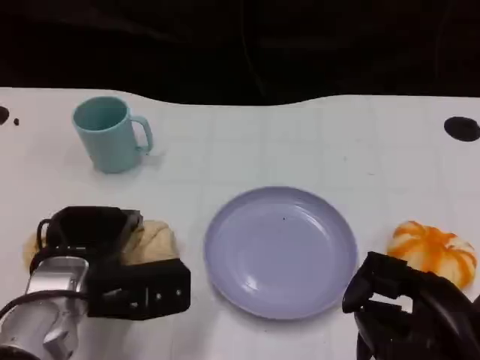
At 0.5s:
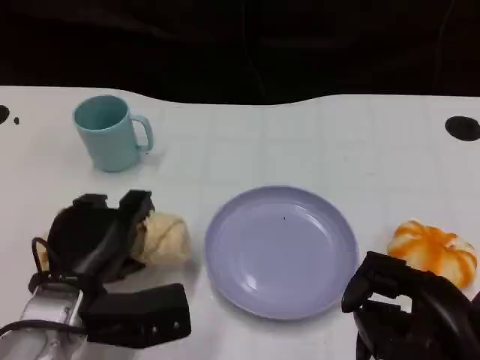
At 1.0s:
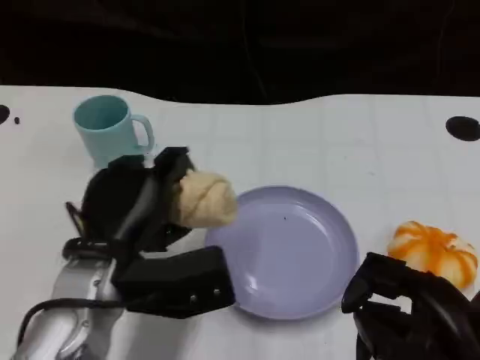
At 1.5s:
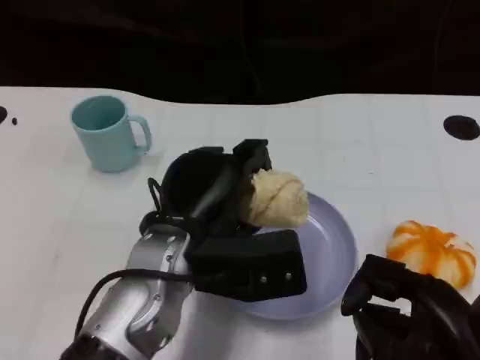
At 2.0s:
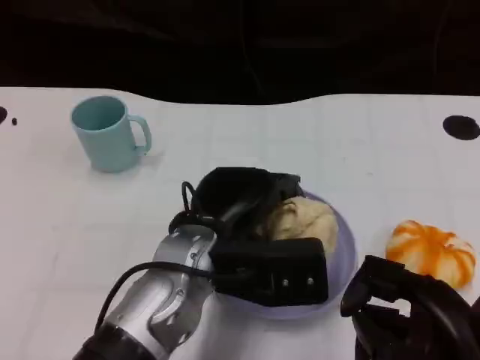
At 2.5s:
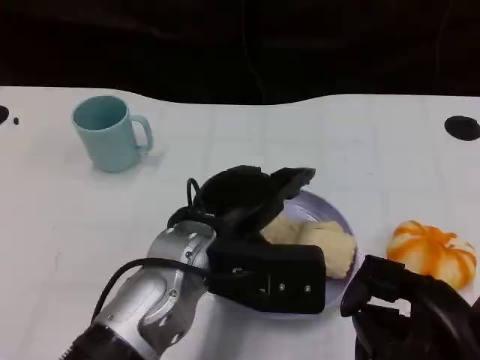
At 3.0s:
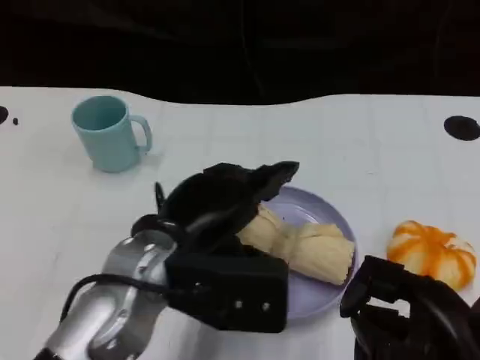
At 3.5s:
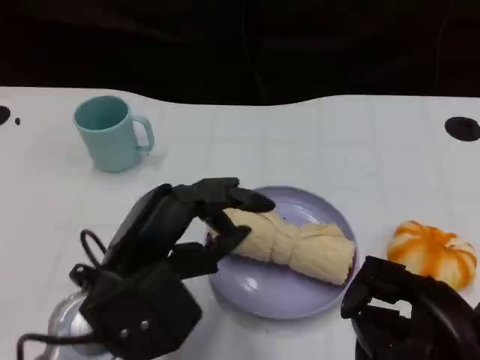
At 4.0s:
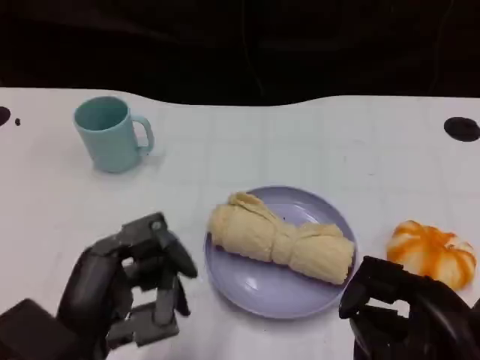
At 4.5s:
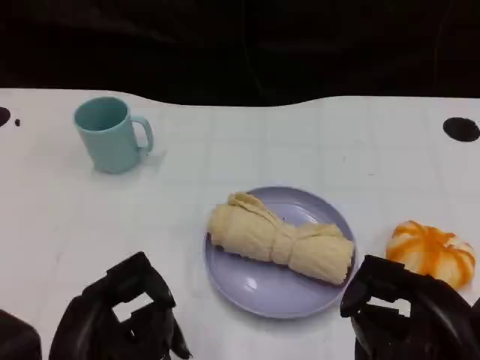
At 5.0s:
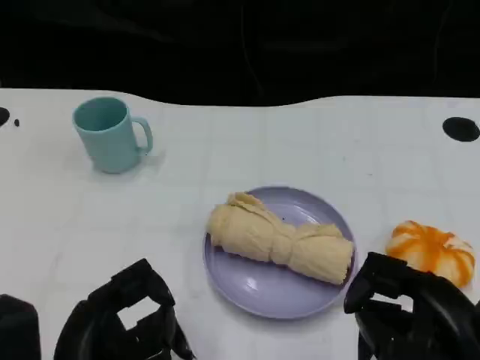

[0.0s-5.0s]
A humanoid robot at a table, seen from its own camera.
Task of the whole recording: Grasp the towel on the left side of the plate with the left hand and place it into the plate.
0.0s to 2.5s: The left hand travels to the right and upward by some 15 cm.
2.5s to 5.0s: The left hand goes roughly 15 cm backward and to the left.

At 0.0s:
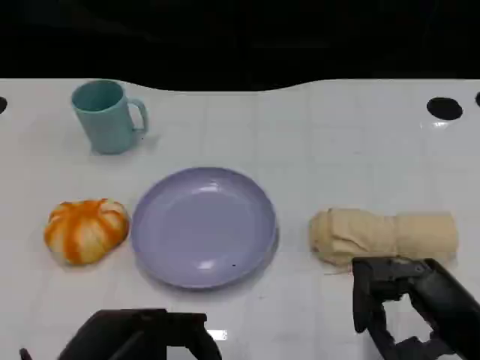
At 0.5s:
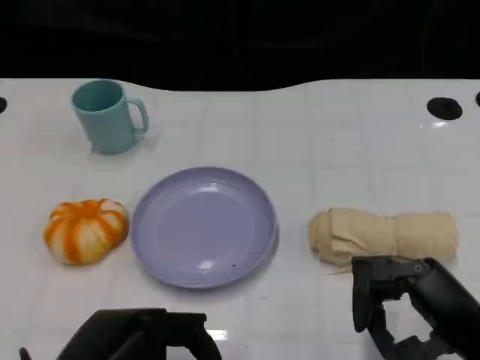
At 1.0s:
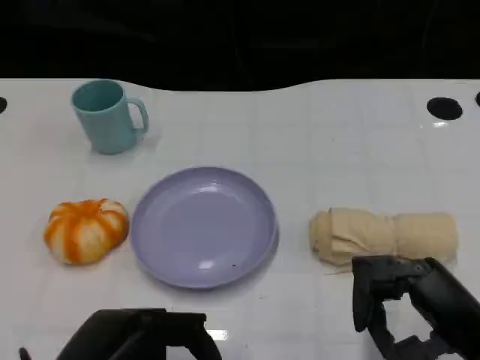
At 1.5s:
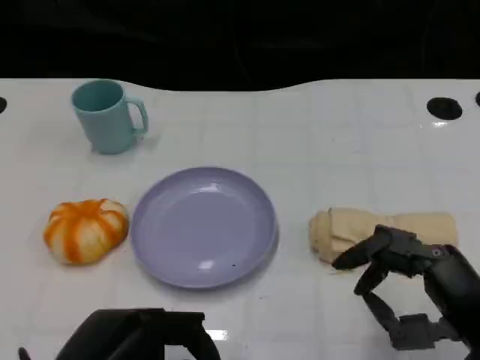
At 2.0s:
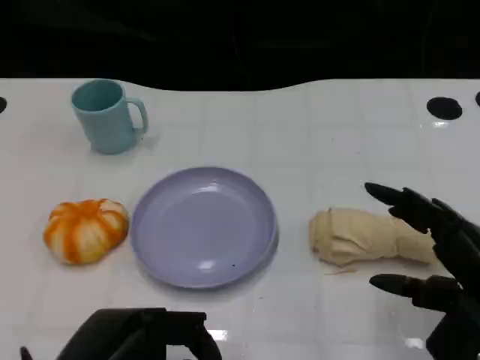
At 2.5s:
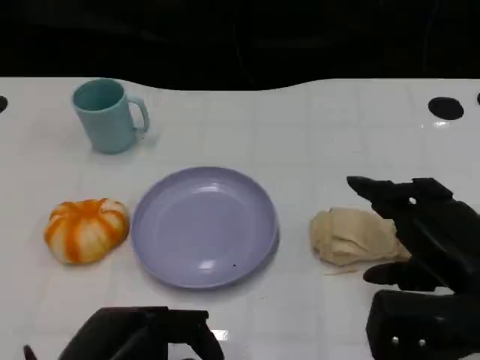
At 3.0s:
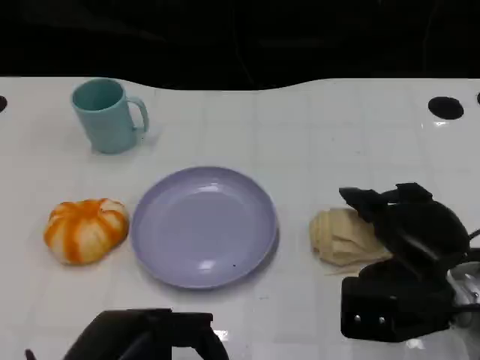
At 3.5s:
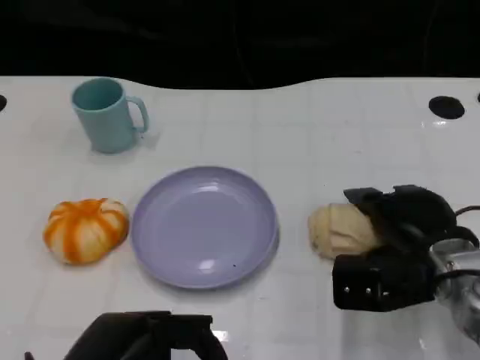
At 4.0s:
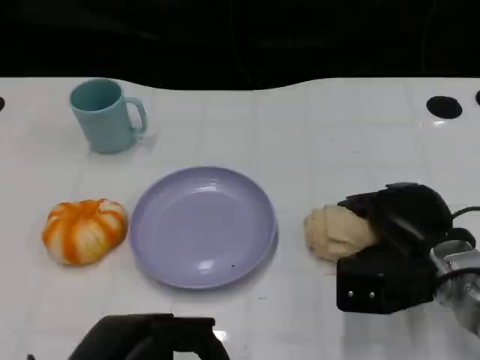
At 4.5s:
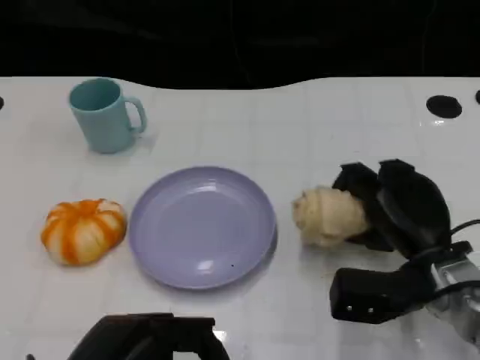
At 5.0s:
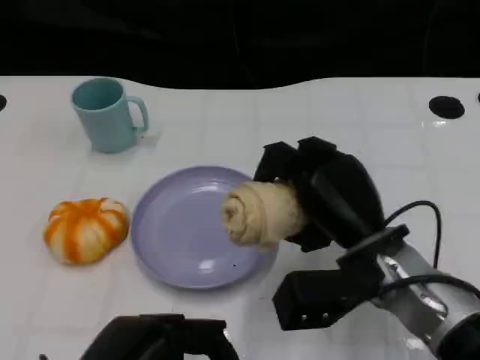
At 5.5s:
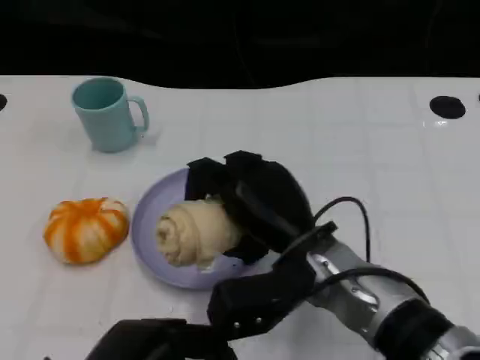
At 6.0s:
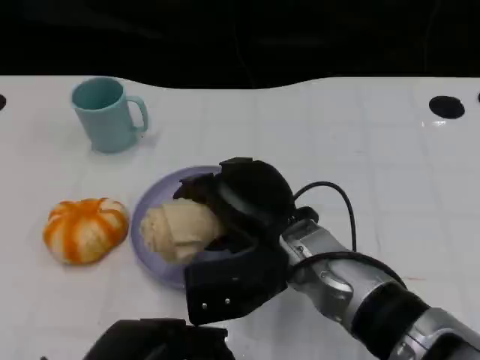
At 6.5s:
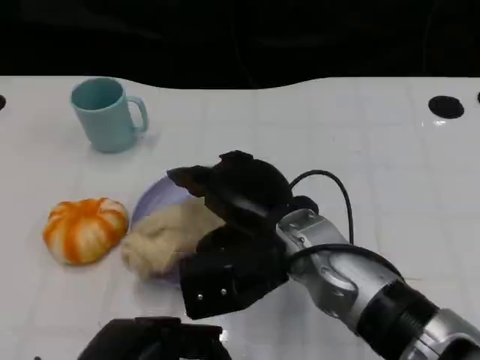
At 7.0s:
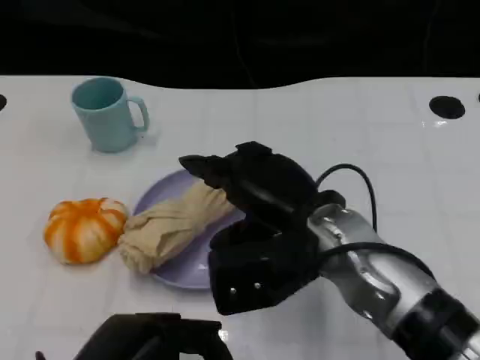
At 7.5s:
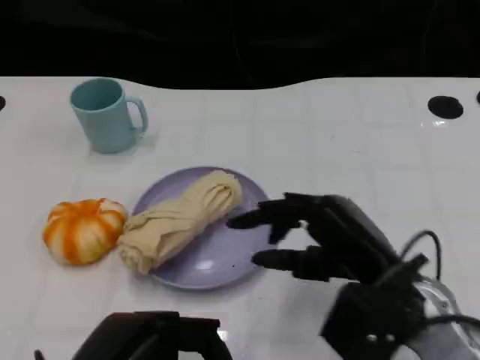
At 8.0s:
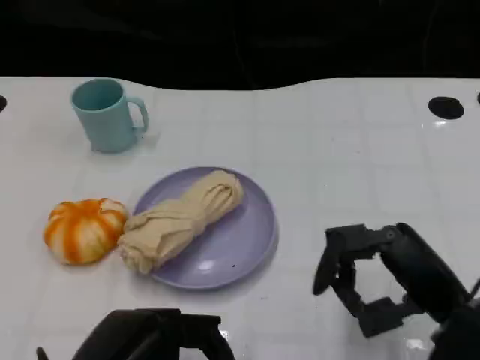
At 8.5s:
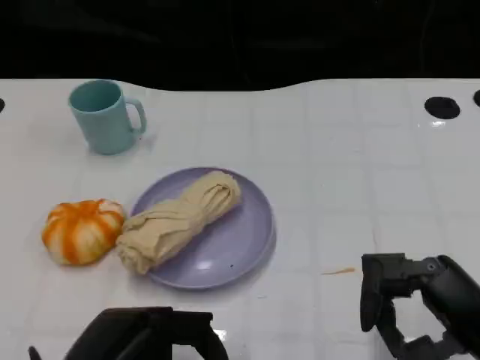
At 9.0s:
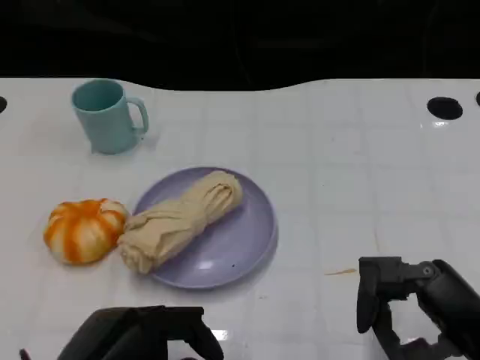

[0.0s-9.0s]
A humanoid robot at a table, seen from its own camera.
Task of the whole recording: Grasp the towel on the left side of the plate with the left hand and place it into the plate.
2.0s to 4.5s: The right hand shifts some 15 cm forward, to the left and downward.
4.5s to 7.0s: The right hand shifts about 15 cm to the left and upward.
7.0s to 9.0s: The right hand moves to the right and backward, about 20 cm.

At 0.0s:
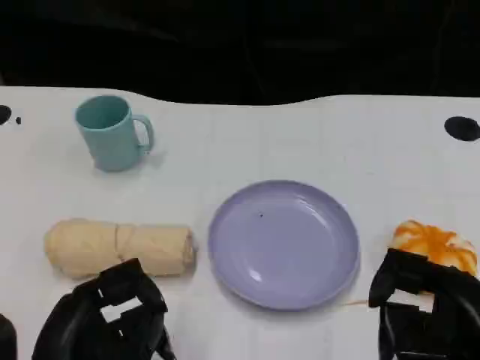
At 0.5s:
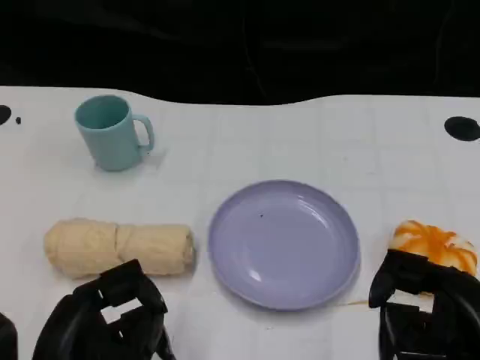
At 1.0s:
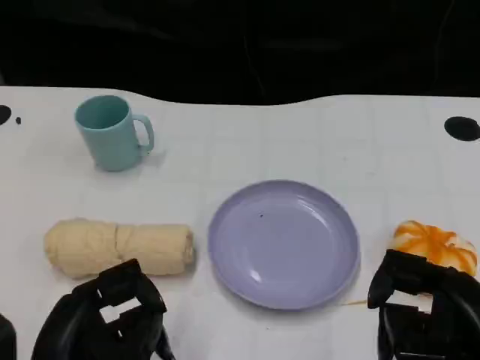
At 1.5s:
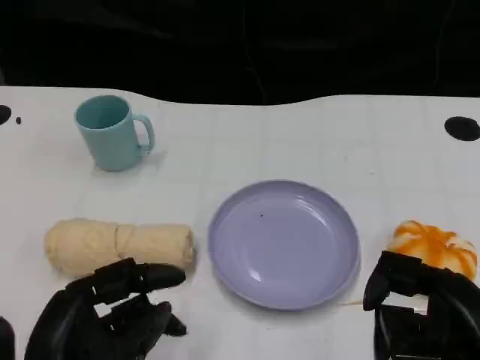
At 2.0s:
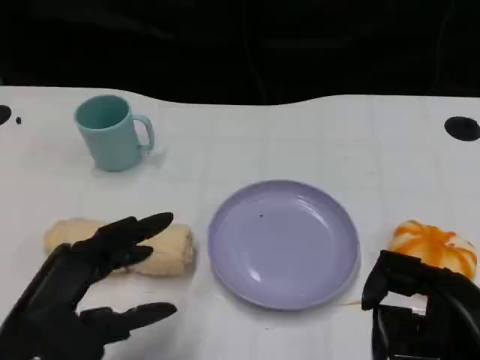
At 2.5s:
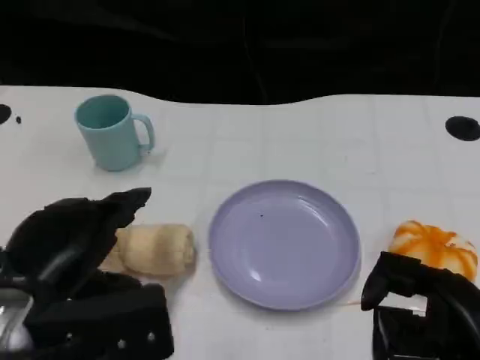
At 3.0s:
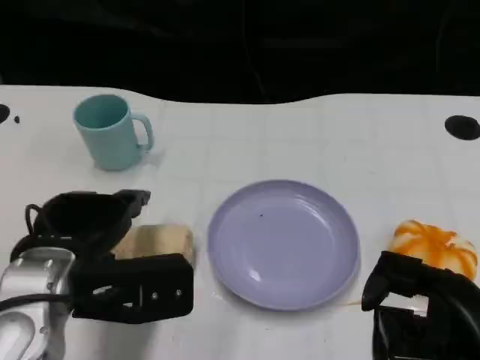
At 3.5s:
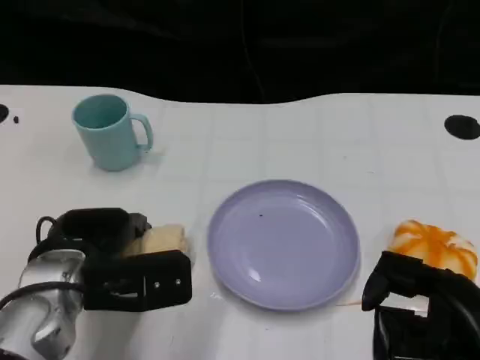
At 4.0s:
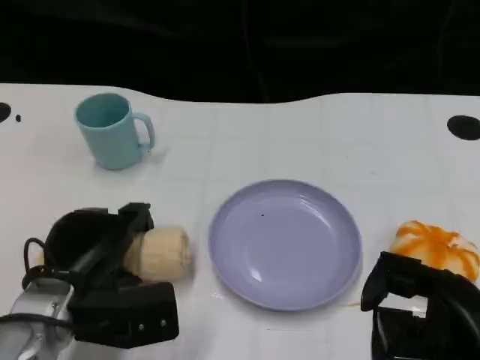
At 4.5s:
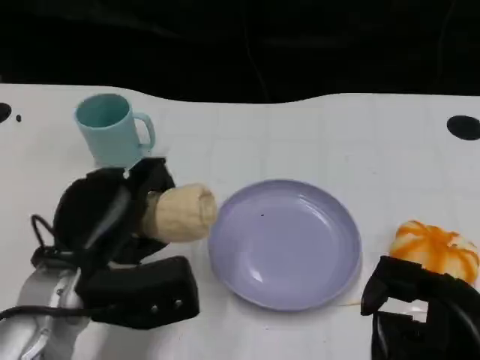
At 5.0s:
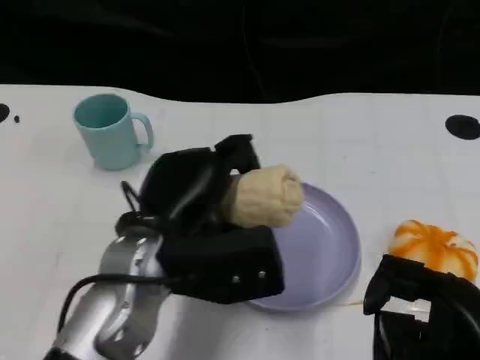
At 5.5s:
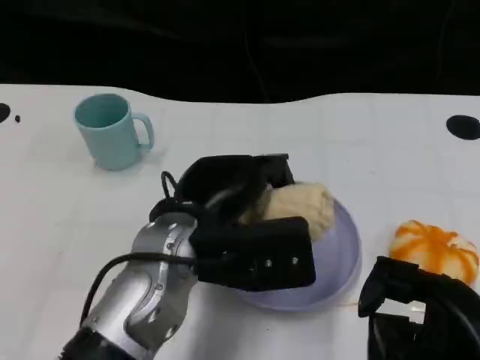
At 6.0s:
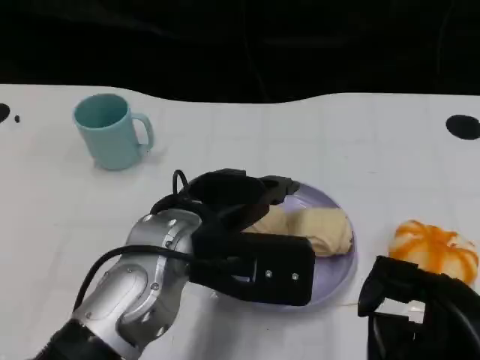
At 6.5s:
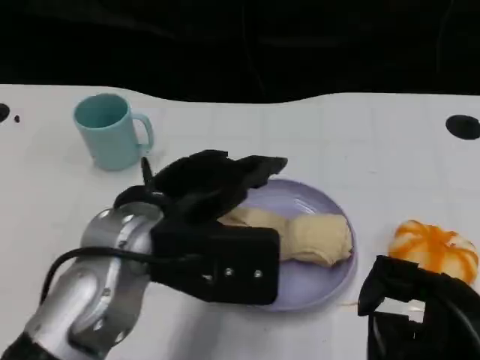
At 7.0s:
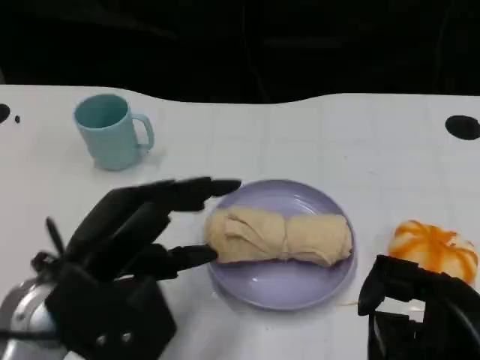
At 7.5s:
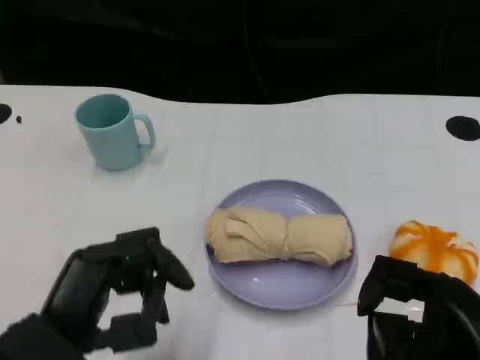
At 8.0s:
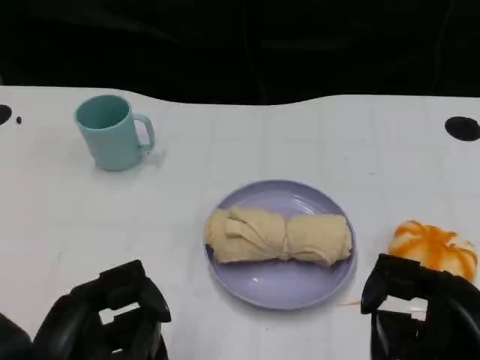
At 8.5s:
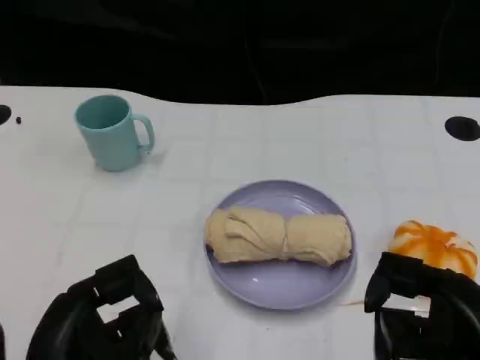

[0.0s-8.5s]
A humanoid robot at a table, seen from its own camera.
Task of the whole recording: Grasp the towel on the left side of the plate with the left hand and place it into the plate.
0.0s to 2.0s: The left hand is displaced upward by approximately 5 cm.
2.0s to 4.0s: The left hand goes approximately 15 cm forward and downward.
4.0s to 6.5s: The left hand shifts some 15 cm upward and to the right.
6.5s to 8.5s: The left hand is displaced backward, to the left and downward by about 15 cm.
